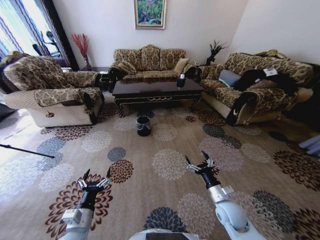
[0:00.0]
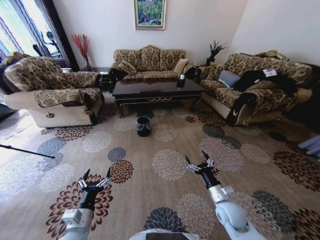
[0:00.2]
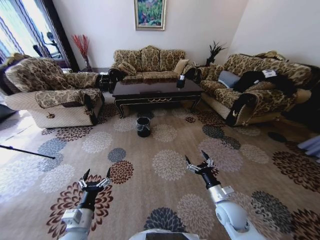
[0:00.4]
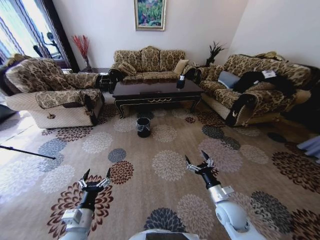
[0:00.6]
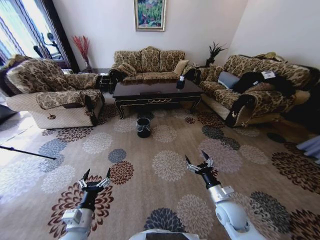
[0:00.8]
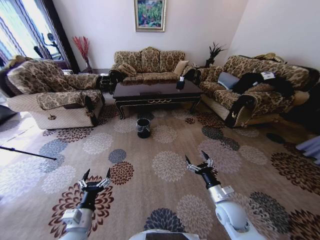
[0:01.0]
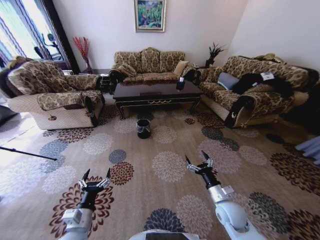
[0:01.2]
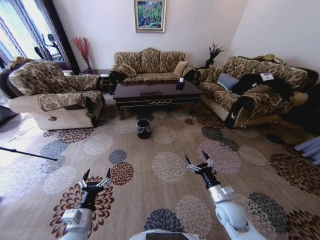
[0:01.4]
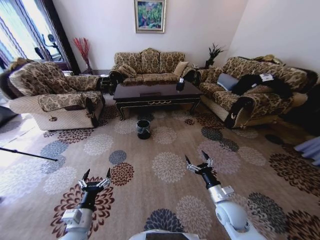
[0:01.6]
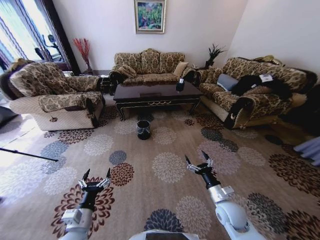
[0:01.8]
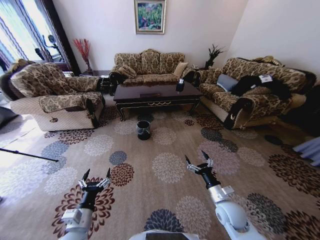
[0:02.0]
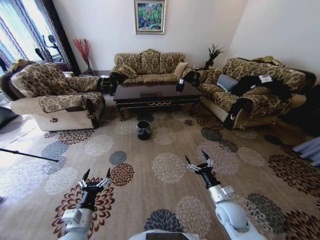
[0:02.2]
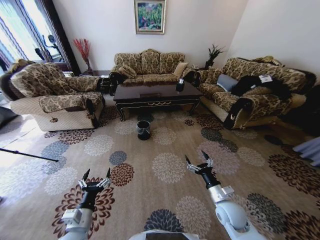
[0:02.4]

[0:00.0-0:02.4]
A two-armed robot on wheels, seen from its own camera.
Task of the whole recording: Move to the front of the table and pick up the trash from the floor, then place it into the trash bin.
0:00.0 to 0:02.4: Both grippers stay about where they are.

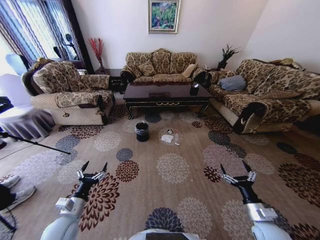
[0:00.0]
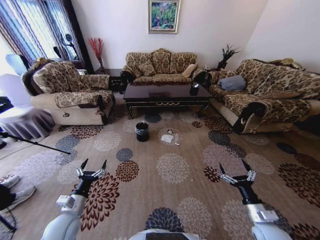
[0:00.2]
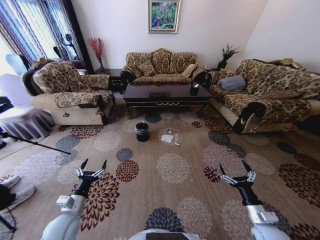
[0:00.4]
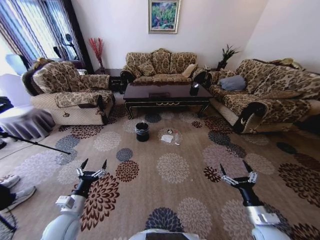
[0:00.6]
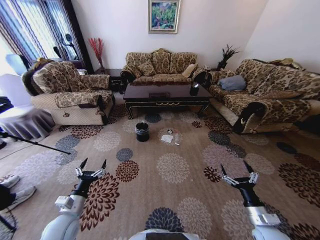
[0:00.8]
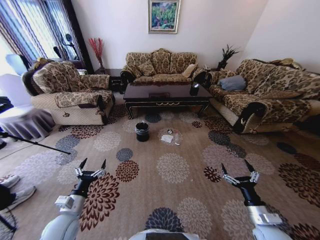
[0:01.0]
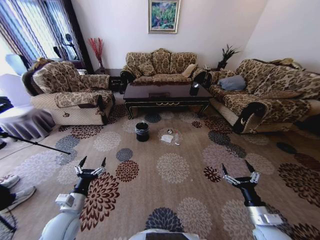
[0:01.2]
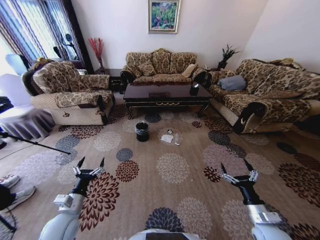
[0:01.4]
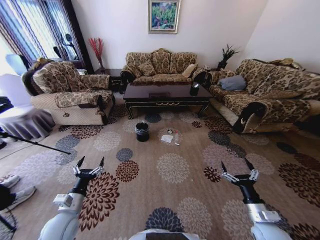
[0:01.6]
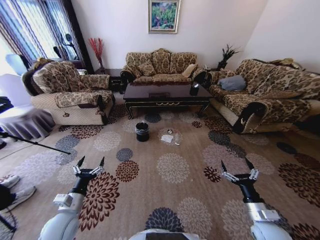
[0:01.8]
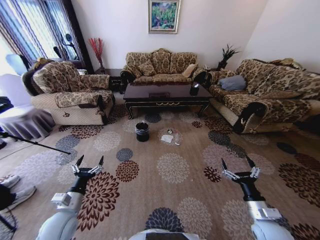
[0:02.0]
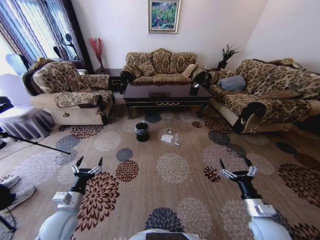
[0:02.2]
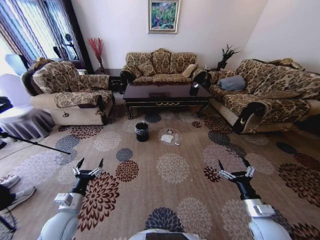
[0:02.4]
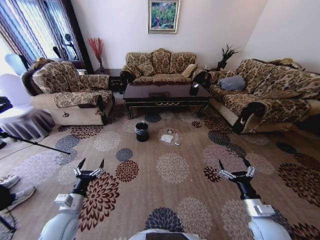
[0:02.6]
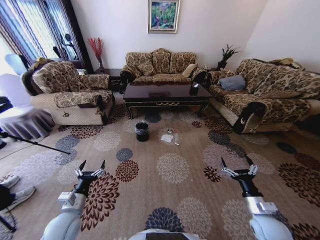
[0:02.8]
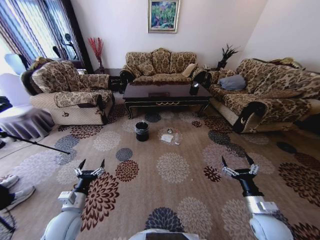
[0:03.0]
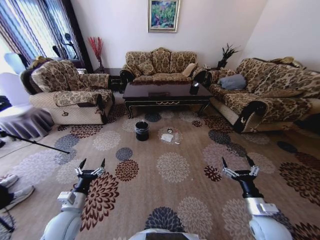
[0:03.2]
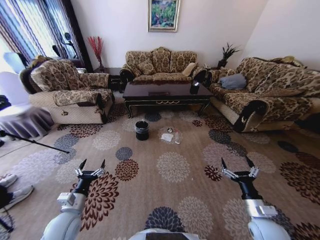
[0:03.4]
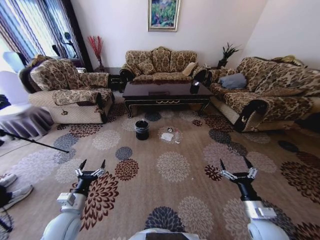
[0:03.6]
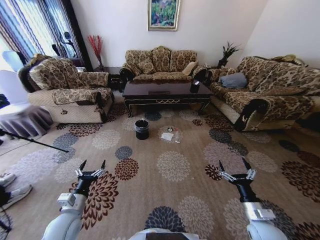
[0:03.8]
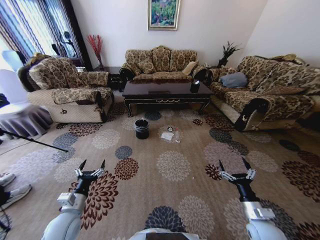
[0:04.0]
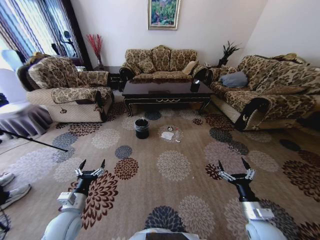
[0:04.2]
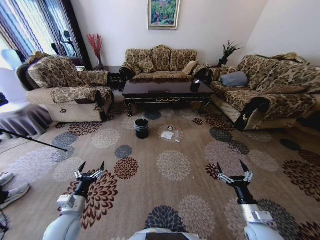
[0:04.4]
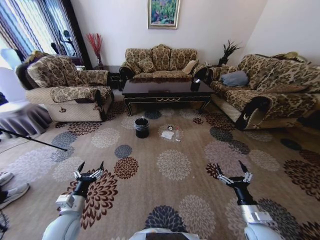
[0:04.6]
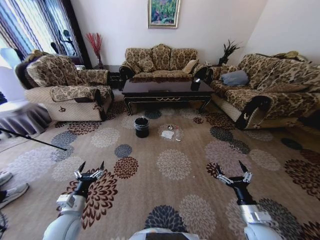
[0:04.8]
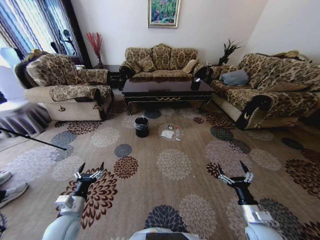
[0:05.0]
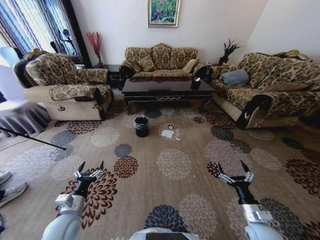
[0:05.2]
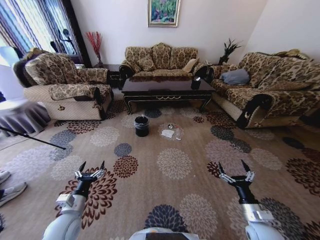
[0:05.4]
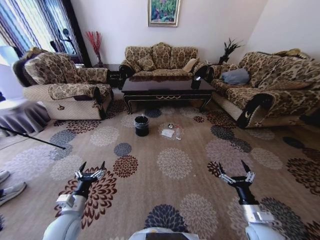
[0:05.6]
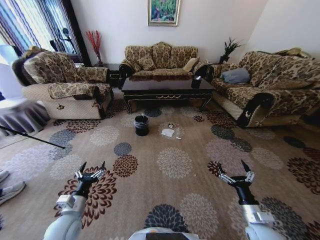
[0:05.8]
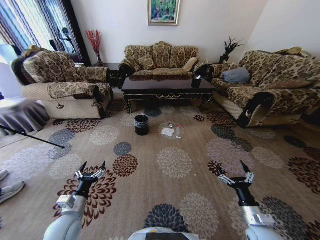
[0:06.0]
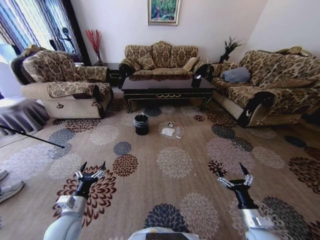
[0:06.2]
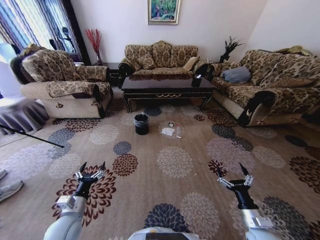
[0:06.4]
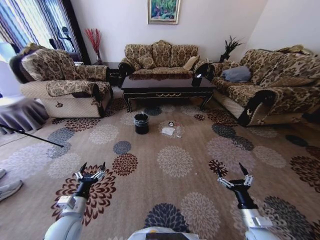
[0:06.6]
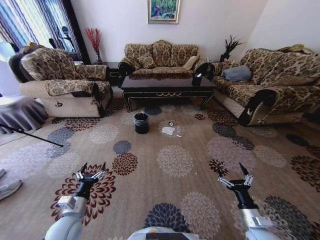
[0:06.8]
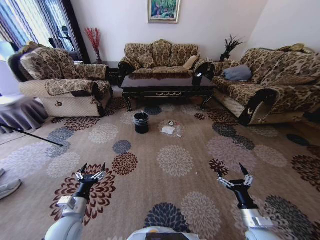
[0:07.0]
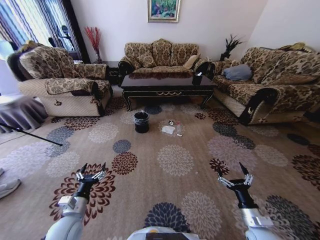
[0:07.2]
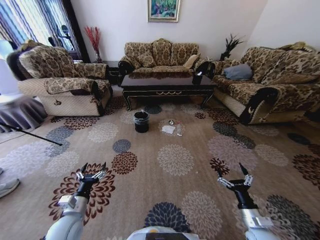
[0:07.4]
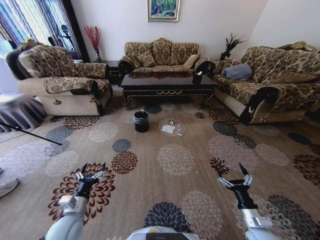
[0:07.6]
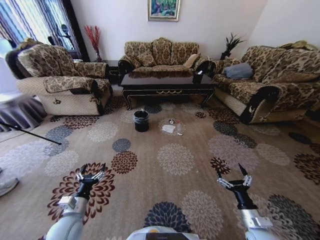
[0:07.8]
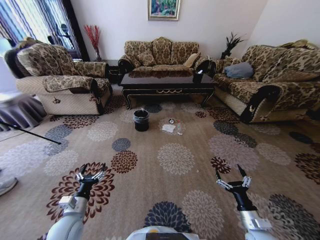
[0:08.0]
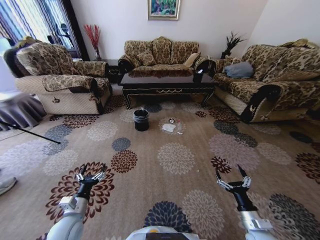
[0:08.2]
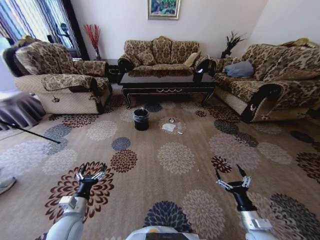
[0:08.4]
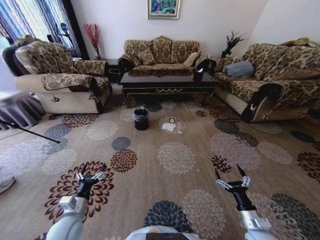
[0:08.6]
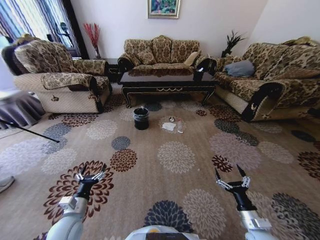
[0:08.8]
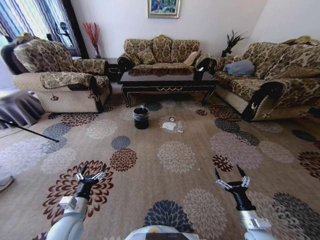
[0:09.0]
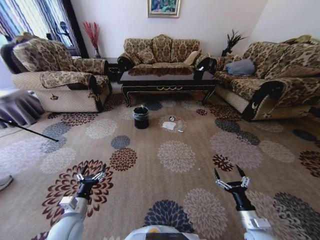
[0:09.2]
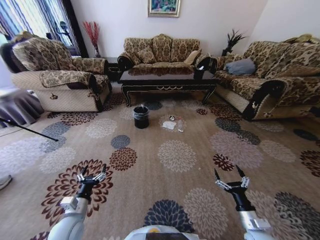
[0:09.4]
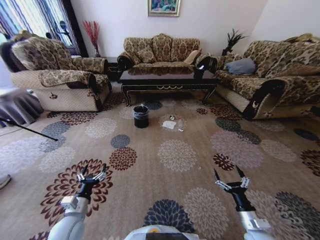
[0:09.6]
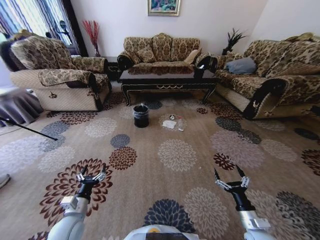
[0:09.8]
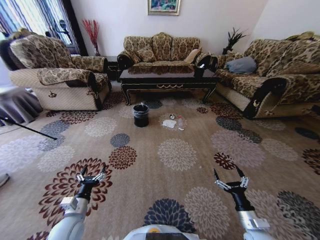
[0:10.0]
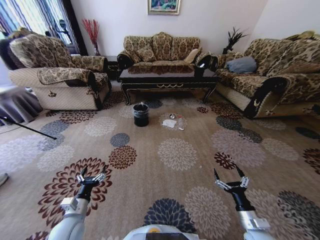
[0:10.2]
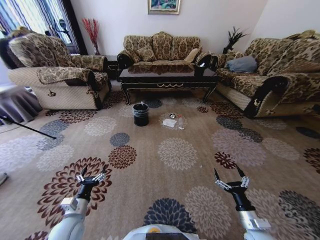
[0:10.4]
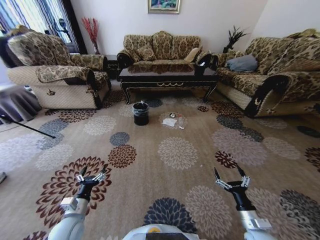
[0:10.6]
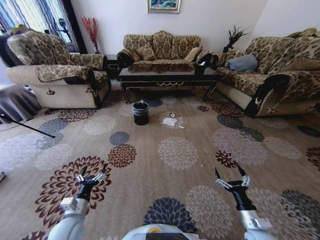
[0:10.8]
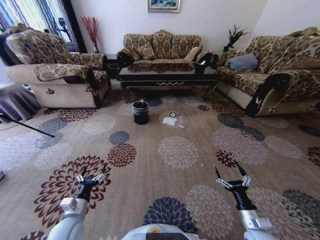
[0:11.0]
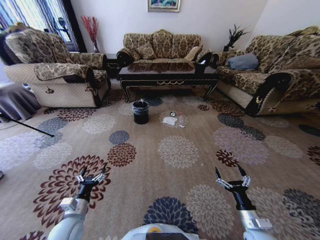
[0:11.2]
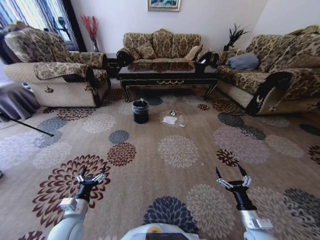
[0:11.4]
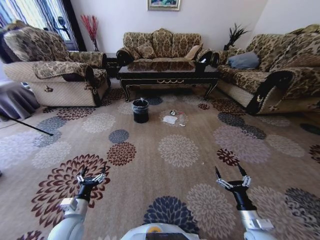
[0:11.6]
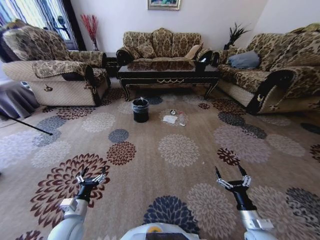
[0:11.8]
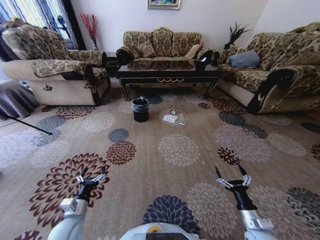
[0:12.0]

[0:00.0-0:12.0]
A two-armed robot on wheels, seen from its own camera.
Task of the whole recording: Move to the front of the table and pick up the trash from the floor, then place it into the trash bin.
0:01.6 to 0:03.0: The grippers stay close to where they were, moving slightly.

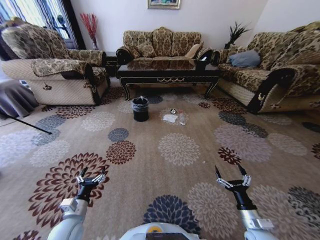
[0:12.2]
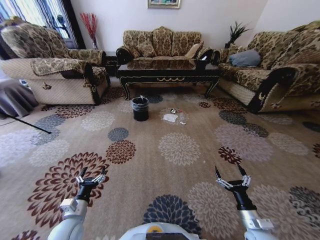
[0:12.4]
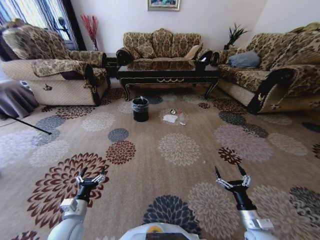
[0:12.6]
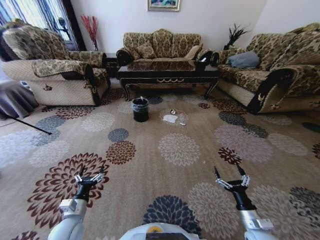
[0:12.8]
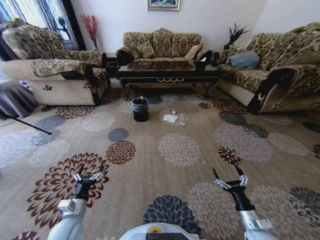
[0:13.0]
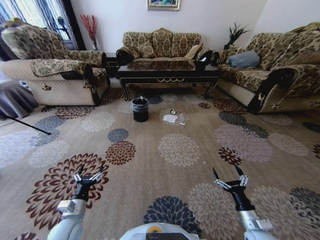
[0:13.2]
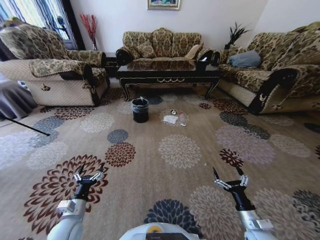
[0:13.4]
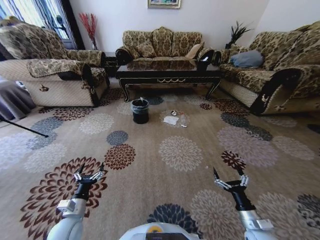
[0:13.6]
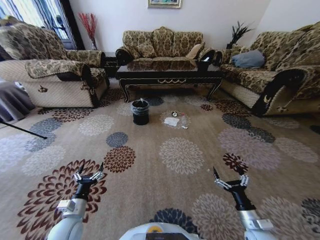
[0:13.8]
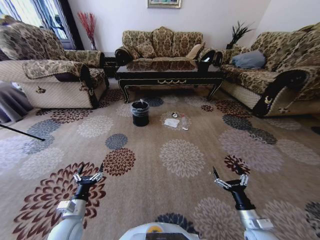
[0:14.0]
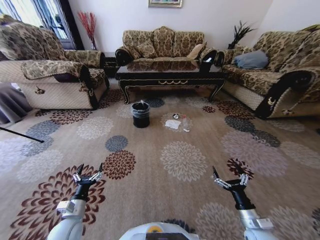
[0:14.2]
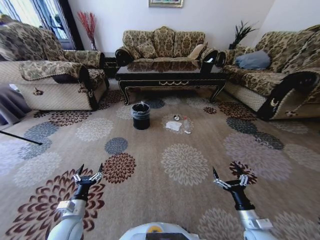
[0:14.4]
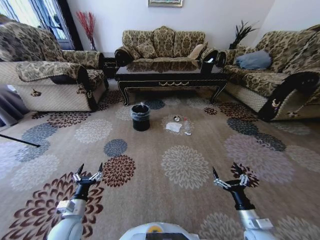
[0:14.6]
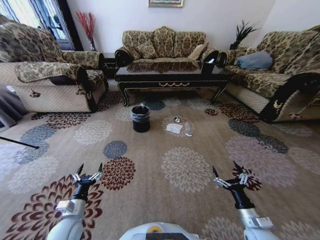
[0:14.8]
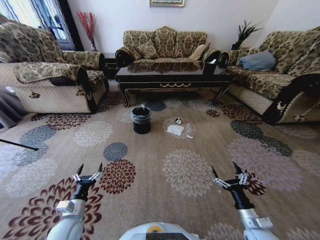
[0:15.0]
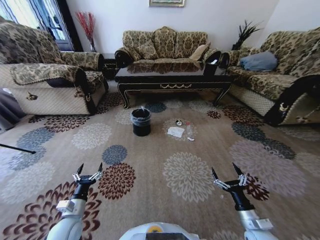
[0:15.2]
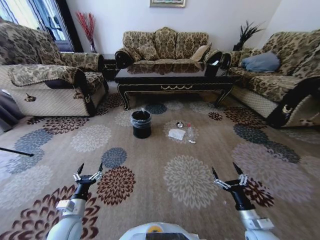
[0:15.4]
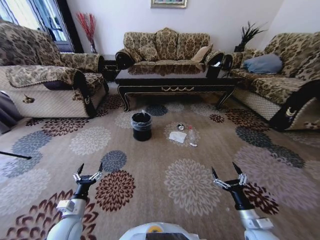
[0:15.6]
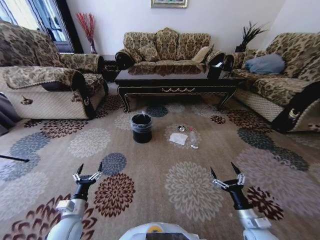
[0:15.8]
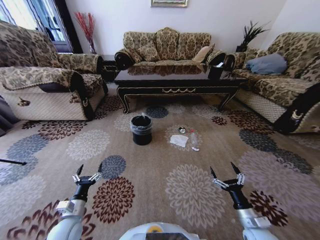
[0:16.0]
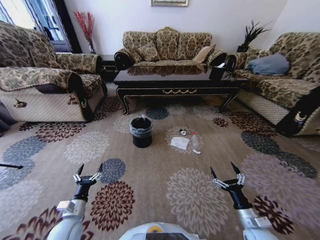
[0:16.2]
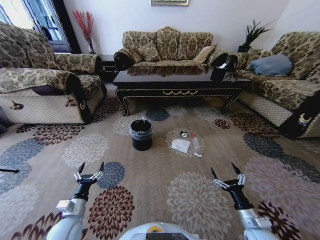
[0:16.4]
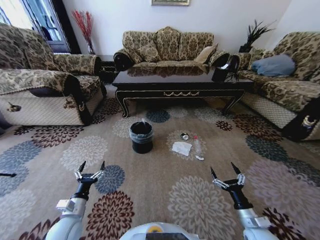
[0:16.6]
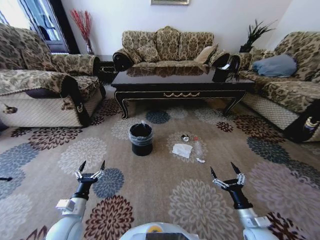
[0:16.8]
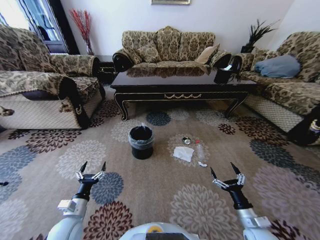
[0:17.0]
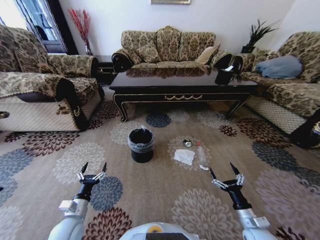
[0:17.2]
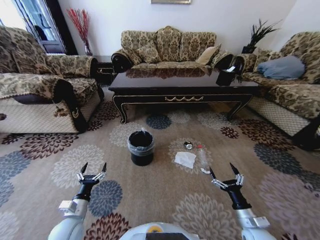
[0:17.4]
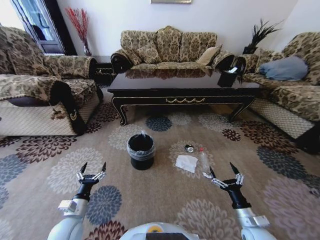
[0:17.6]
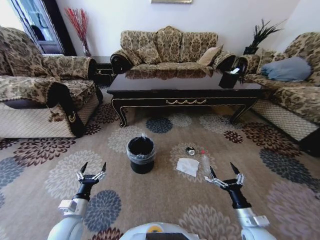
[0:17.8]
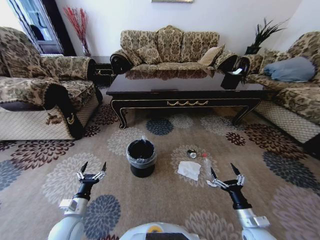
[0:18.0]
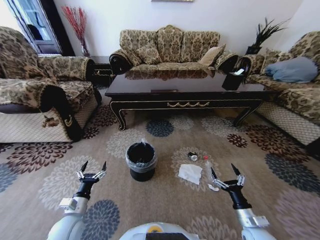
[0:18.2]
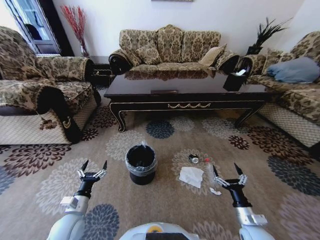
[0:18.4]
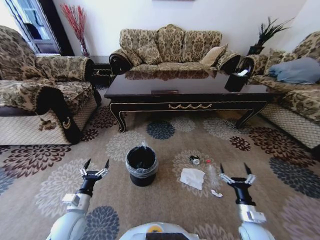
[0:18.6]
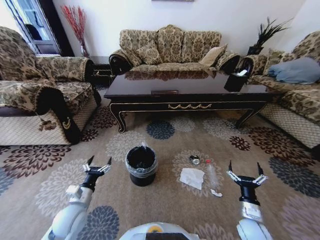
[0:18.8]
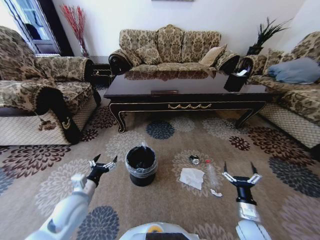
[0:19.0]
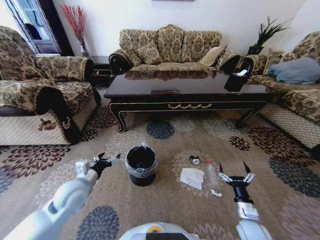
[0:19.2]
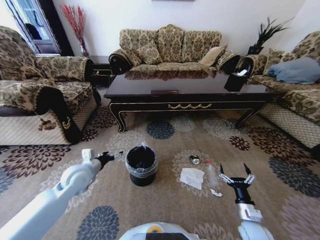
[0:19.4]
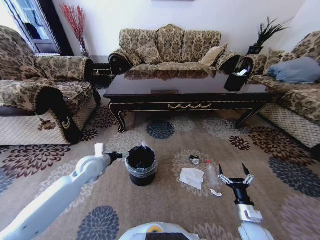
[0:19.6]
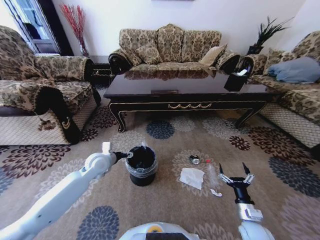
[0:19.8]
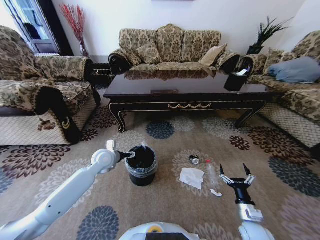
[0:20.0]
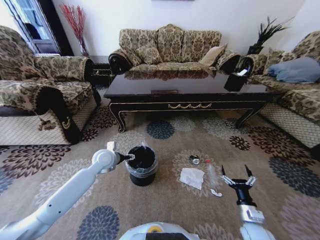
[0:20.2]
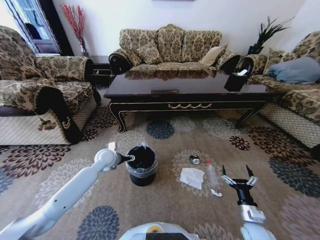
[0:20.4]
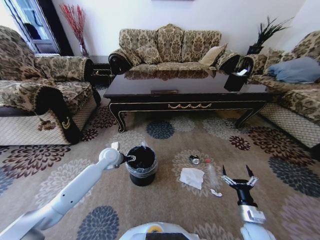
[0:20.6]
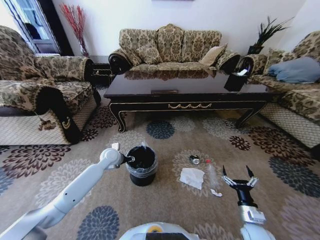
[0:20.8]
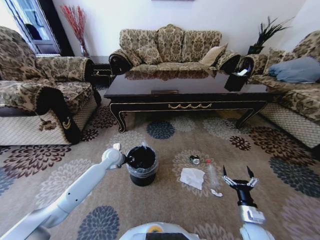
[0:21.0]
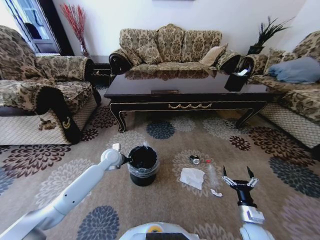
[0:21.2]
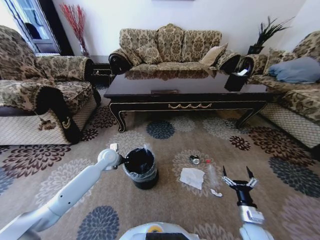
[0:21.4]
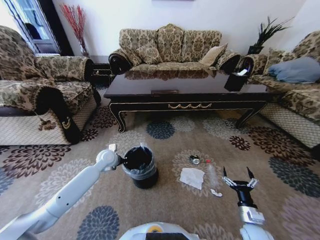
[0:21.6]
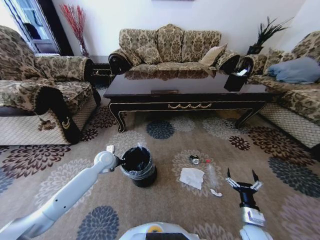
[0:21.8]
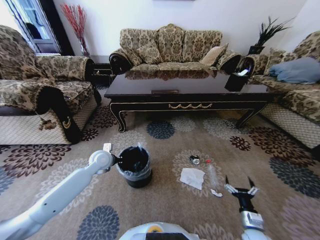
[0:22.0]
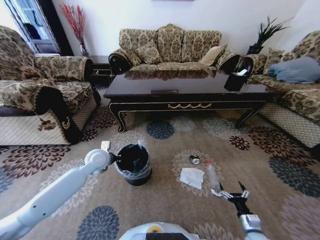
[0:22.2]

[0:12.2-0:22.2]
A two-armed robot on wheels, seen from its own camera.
Task of the whole recording: Move to the front of the table and pick up the trash from the floor, then place it into the trash bin.
0:12.2 to 0:13.6: The grippers stay close to where they were, moving slightly.
0:18.0 to 0:19.4: The left gripper moves forward and upward, some 20 cm.
0:19.4 to 0:20.8: The left gripper travels forward, to the right and downward by roughly 15 cm.
0:20.8 to 0:22.2: The right gripper heads downward, covering some 5 cm, while the left gripper heads upward and backward, covering some 10 cm, and closes up.
